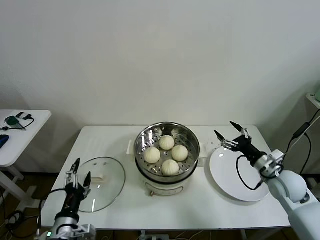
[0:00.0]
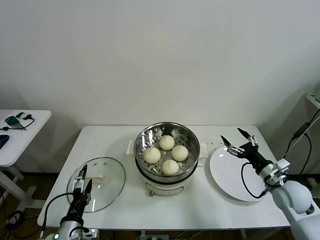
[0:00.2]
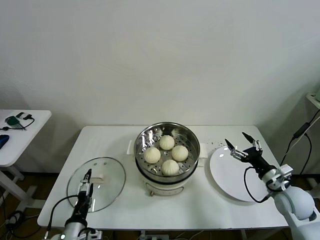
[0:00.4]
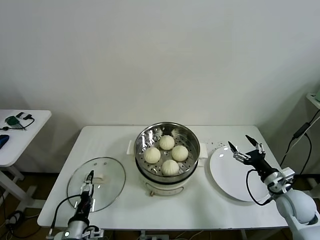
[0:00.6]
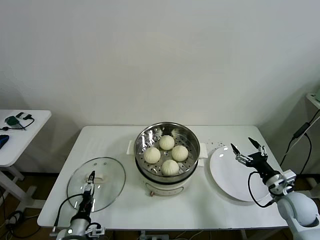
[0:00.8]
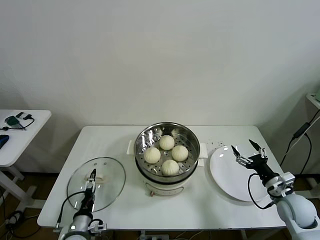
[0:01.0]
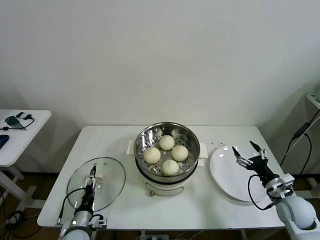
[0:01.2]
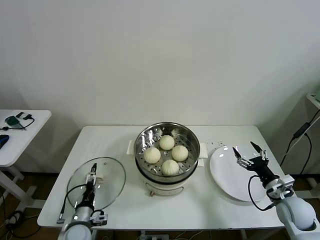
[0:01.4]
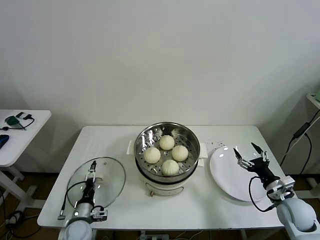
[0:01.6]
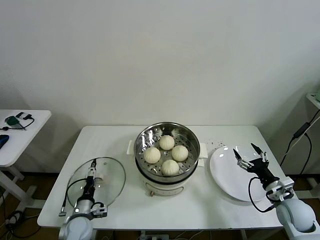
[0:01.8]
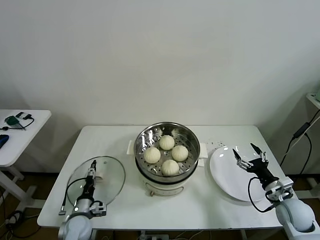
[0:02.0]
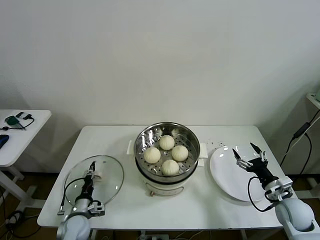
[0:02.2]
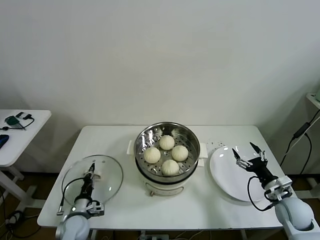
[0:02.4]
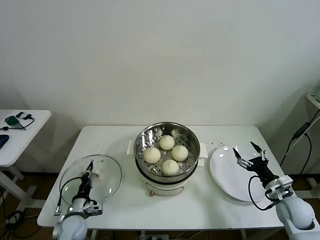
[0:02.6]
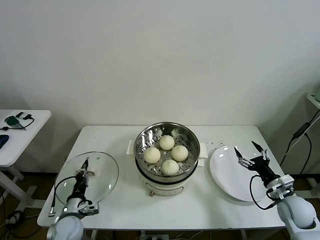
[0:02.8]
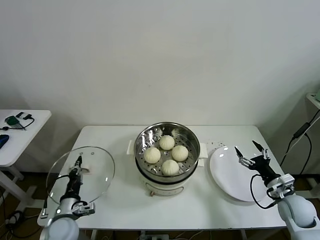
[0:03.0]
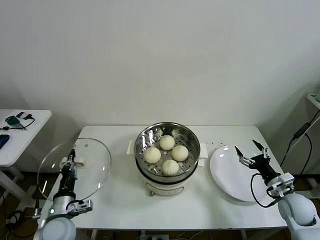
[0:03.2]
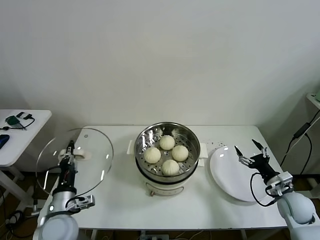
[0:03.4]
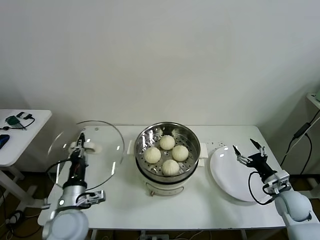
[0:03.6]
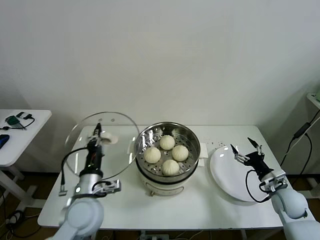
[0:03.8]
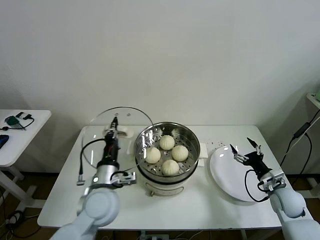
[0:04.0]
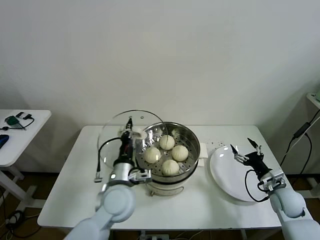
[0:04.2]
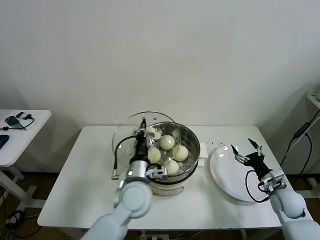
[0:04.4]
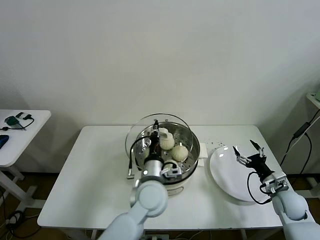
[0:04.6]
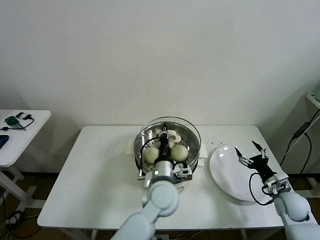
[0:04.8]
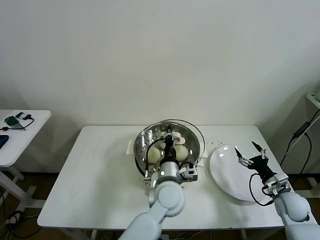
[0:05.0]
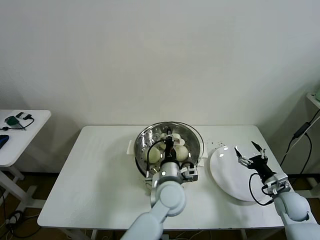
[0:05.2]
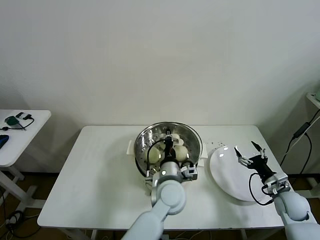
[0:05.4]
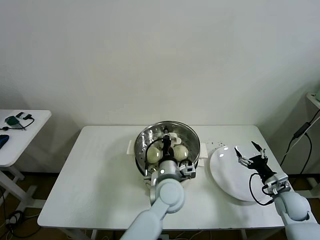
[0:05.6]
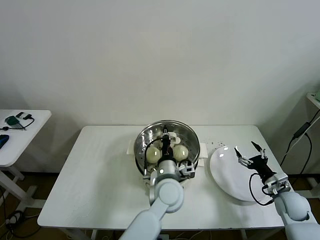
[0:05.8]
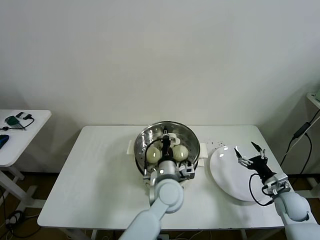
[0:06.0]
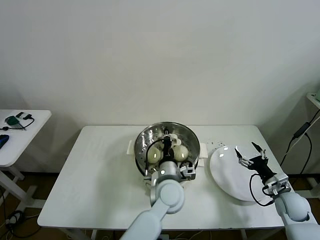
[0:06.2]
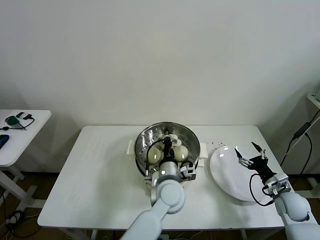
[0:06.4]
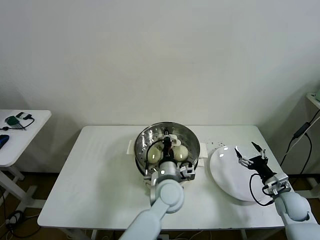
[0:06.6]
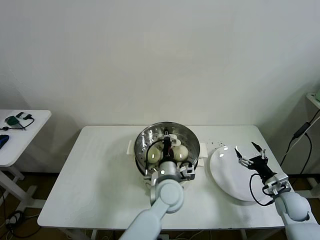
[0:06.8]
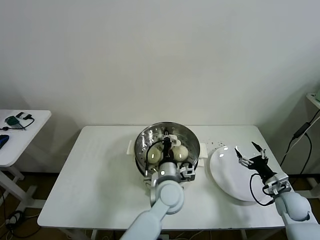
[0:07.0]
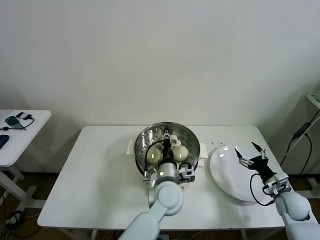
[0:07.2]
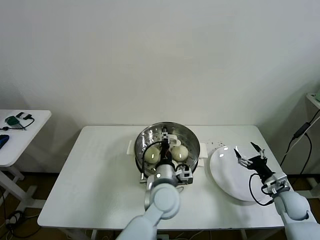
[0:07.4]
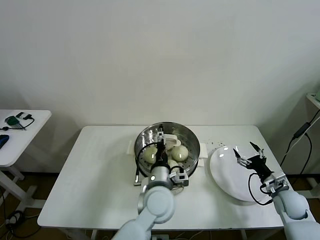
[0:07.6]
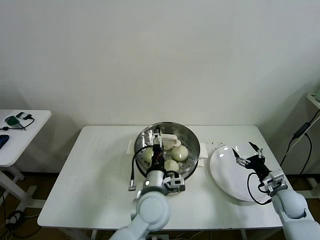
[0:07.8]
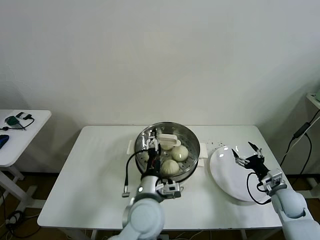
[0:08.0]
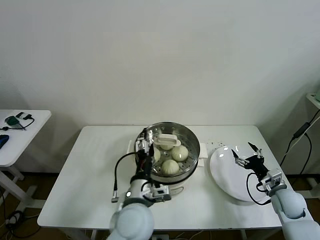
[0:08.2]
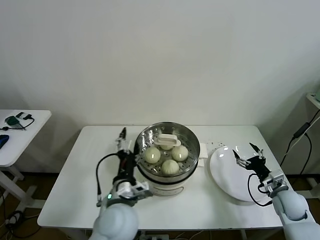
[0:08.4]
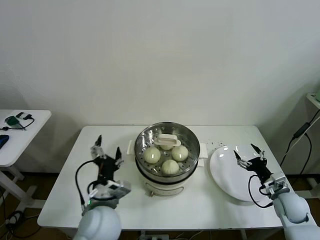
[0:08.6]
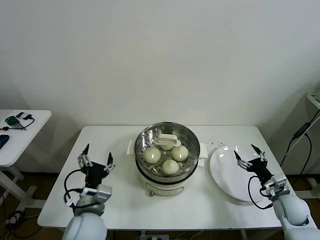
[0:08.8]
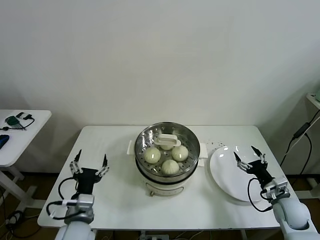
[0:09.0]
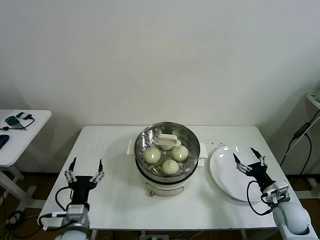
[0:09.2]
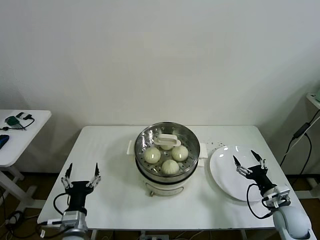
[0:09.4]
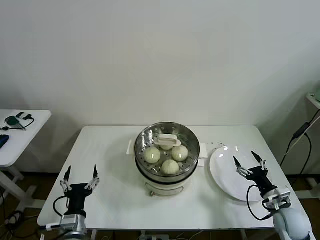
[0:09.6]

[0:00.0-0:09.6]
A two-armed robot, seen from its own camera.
Task of the whole recording: take steamed baozi put them in steamer then cover it.
Step, 0:00.0 to 0:02.4: Grasp the pot lid with left gripper.
Step, 0:02.6 to 0:07.6: Place the pot lid on the steamer with left gripper.
0:00.0 to 0:01.6: The left gripper travels downward and forward by some 15 cm. The right gripper heads downward and backward, covering approximately 10 cm.
0:01.6 to 0:03.2: The left gripper shifts approximately 10 cm upward, and closes its fingers.
0:03.2 to 0:04.8: The left gripper travels to the right by roughly 30 cm.
0:04.8 to 0:06.4: There are only small adjustments of the grippers.
0:06.4 to 0:08.0: The left gripper heads backward and to the left, covering some 10 cm, and opens its fingers.
0:08.0 to 0:09.6: The left gripper is displaced to the left and downward by about 25 cm; the right gripper goes roughly 5 cm backward.
